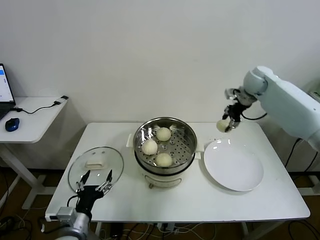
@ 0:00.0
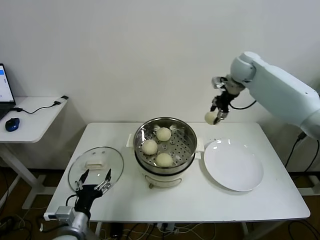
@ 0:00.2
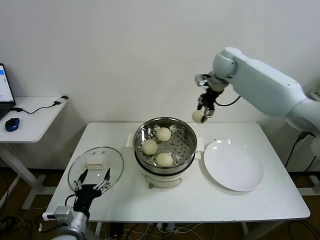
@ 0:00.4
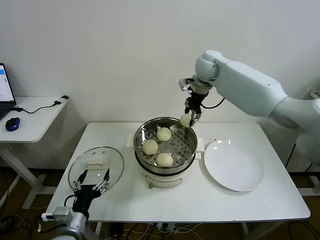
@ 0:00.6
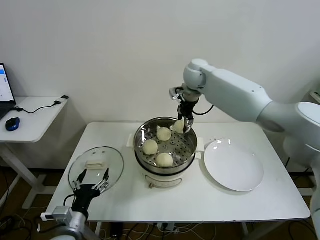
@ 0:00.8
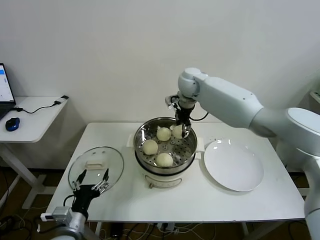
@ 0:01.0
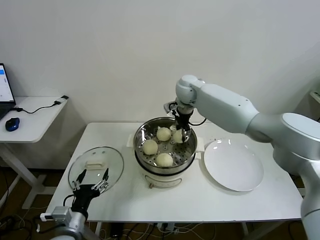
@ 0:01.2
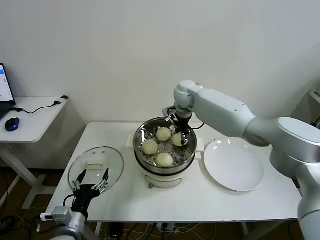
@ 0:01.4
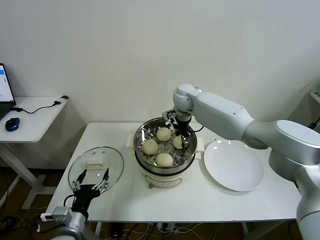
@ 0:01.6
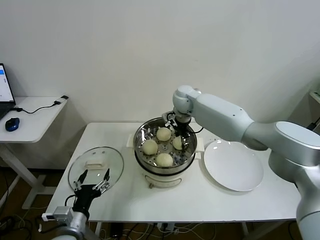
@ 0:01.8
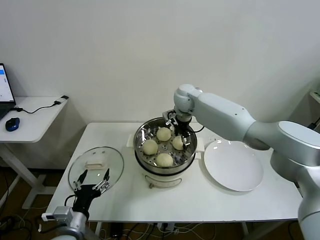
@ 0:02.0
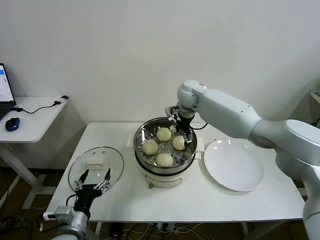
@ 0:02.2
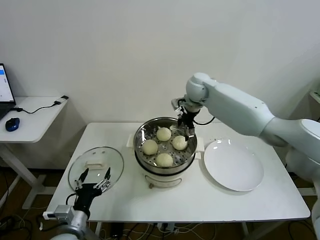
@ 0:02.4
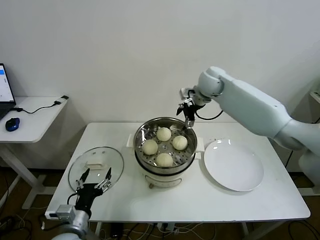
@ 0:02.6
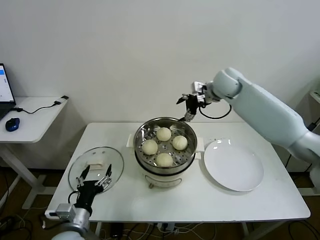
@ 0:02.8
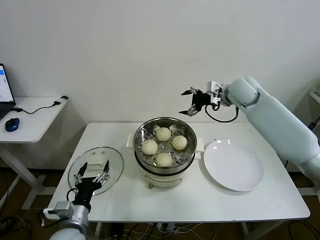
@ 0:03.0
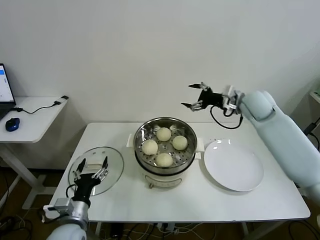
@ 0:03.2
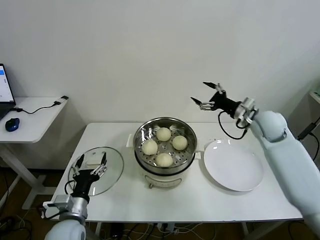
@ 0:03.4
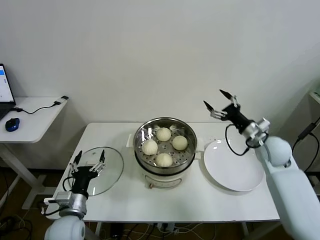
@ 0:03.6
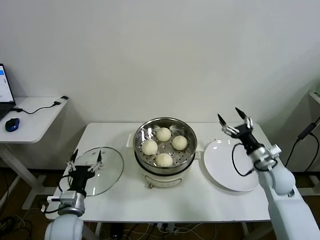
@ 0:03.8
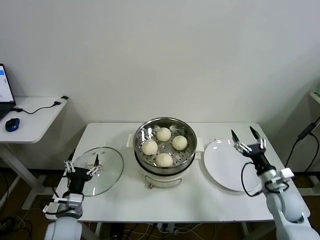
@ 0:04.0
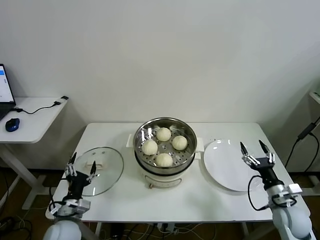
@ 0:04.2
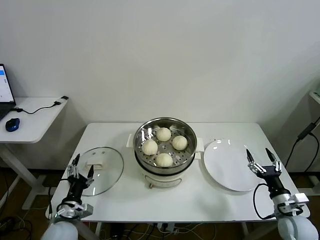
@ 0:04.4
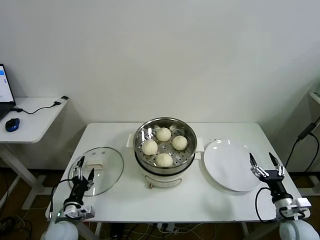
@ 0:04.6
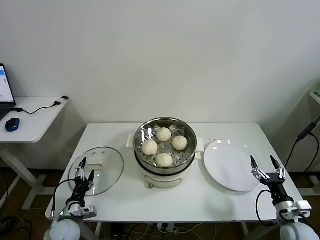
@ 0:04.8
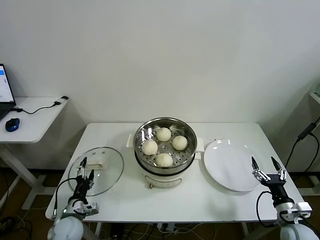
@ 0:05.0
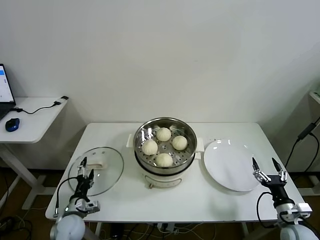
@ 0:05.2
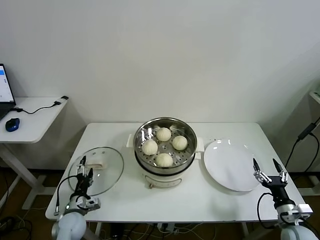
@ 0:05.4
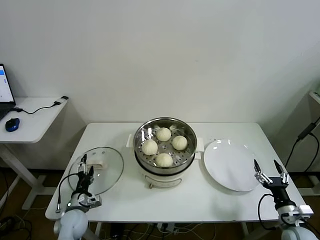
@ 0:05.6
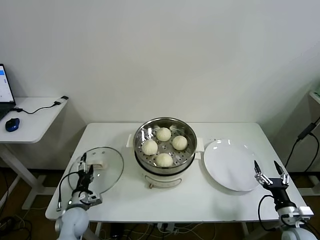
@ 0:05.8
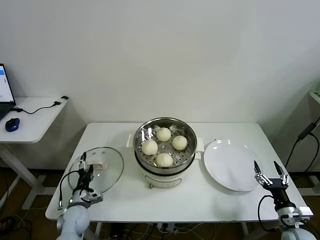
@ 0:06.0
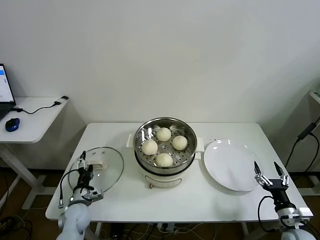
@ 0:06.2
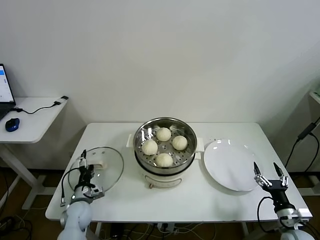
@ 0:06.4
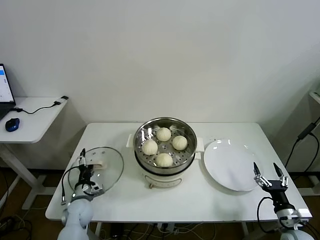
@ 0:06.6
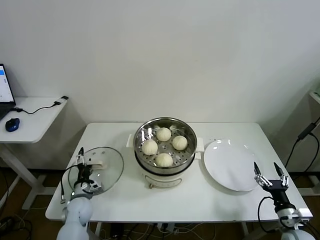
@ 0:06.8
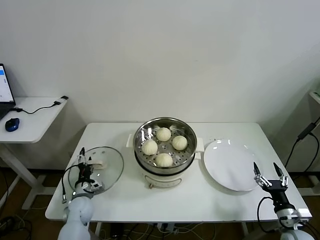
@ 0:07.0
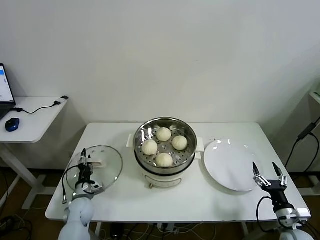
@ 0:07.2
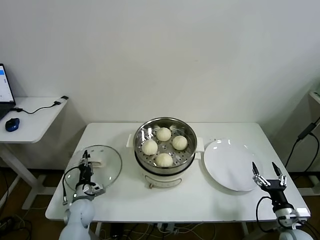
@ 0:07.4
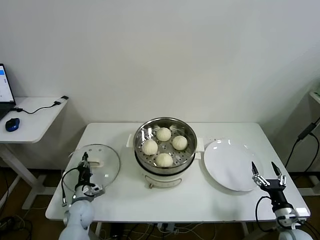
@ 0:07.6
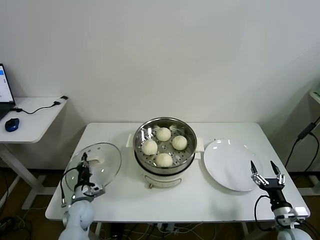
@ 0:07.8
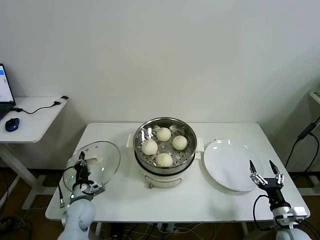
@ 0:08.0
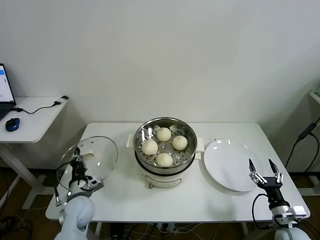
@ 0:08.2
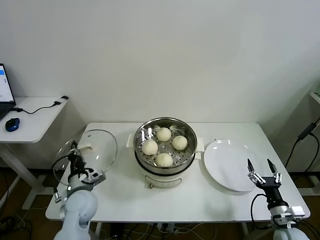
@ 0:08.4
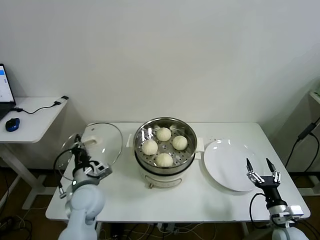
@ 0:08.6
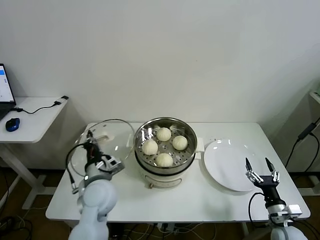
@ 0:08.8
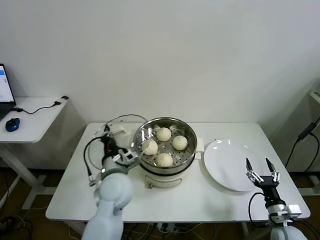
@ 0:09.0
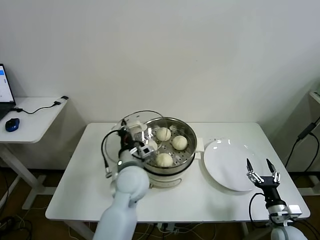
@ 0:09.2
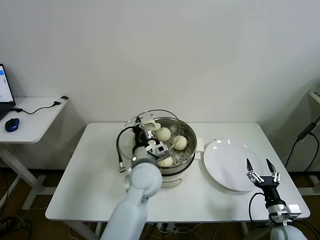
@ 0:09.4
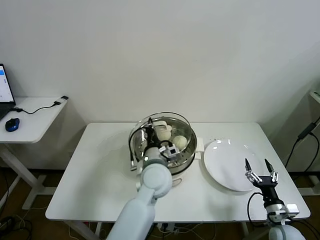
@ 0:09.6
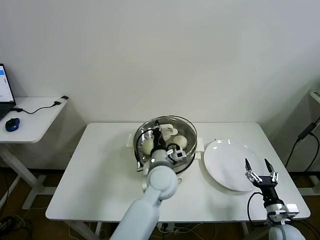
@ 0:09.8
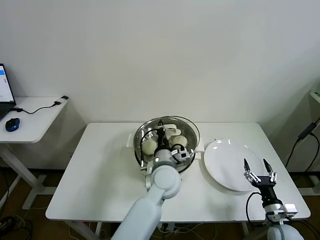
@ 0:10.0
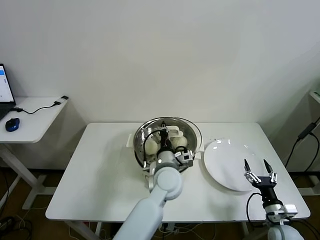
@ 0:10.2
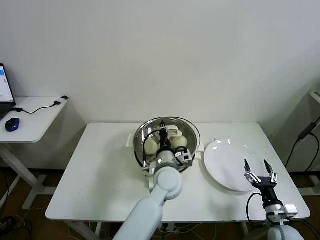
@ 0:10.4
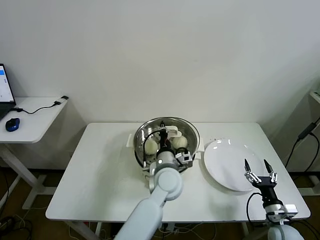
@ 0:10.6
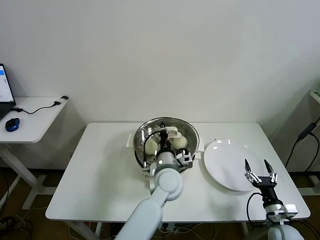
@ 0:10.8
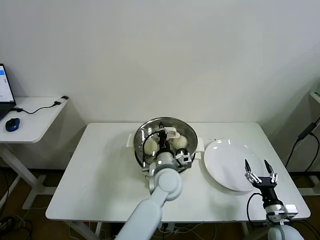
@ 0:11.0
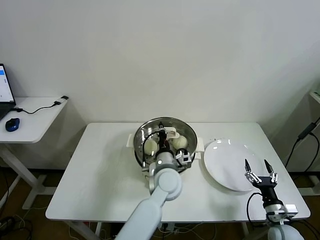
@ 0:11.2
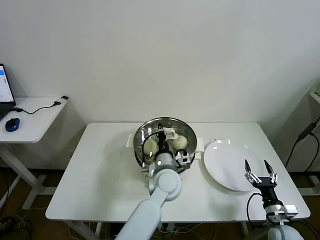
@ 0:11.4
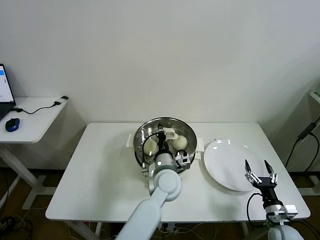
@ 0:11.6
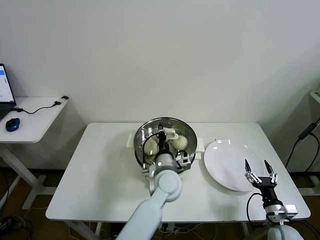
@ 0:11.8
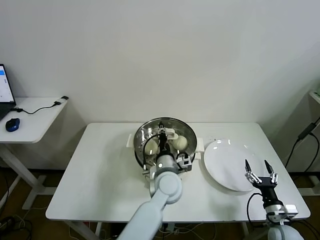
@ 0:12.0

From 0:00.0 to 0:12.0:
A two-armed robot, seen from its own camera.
Task of the whole recording: take steamed baozi put them in steamer then cover it.
Step, from 0:00.0 to 0:02.4: Place the baozi on the steamer with right gripper.
Step, from 0:02.6 to 0:07.6: Grasp the pot lid with left gripper.
From 0:00.0 to 0:01.6: The right gripper goes some 25 cm to the left.
From 0:01.6 to 0:03.0: The right gripper heads to the right, covering roughly 20 cm, and opens its fingers.
From 0:03.0 to 0:04.4: The left gripper shifts about 10 cm downward and to the left, while the right gripper shifts about 50 cm backward, downward and to the right.
From 0:04.4 to 0:06.0: The left gripper moves forward and downward, approximately 10 cm.
From 0:06.0 to 0:07.6: The left gripper closes.
From 0:07.6 to 0:09.0: The left gripper shifts about 30 cm upward and to the right.
From 0:09.0 to 0:10.4: The left gripper goes roughly 15 cm to the right.
From 0:10.4 to 0:12.0: The grippers make only small movements.

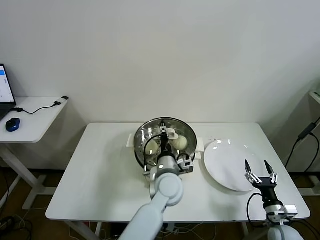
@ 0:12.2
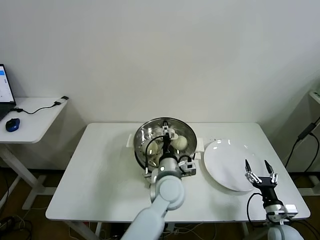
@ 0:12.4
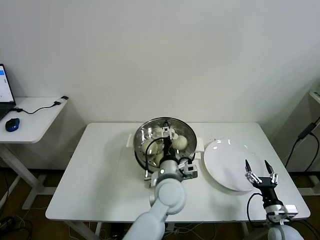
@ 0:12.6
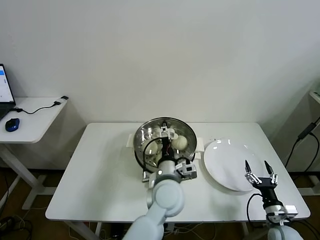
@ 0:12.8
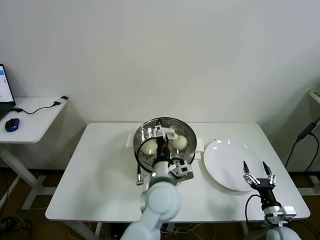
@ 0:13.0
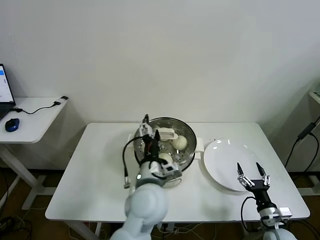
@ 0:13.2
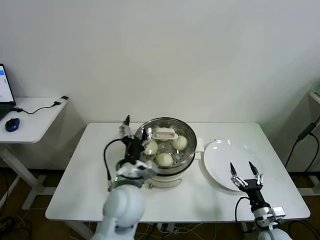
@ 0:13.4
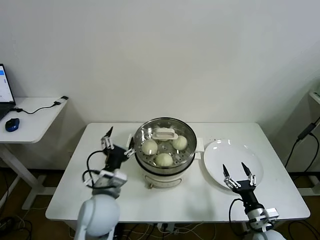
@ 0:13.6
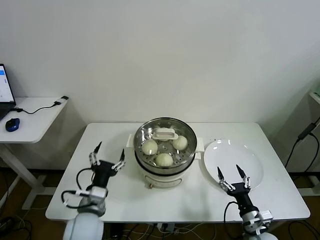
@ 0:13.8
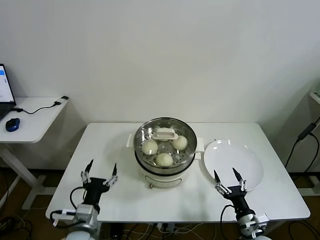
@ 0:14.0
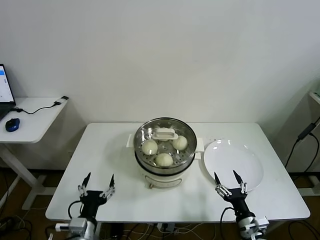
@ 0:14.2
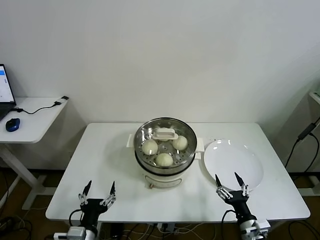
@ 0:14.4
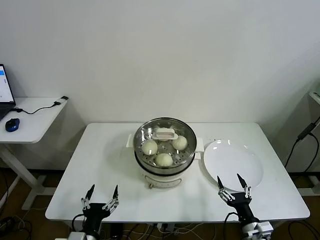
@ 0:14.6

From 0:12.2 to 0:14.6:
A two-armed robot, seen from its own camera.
Task of the whole recording: take steamed baozi put them in steamer then cover it.
From 0:12.2 to 0:13.4: The left gripper is displaced to the left, upward and backward by roughly 15 cm, and opens.
From 0:13.4 to 0:14.6: The left gripper shifts some 25 cm to the left, backward and downward. Meanwhile the right gripper goes some 5 cm to the left.
